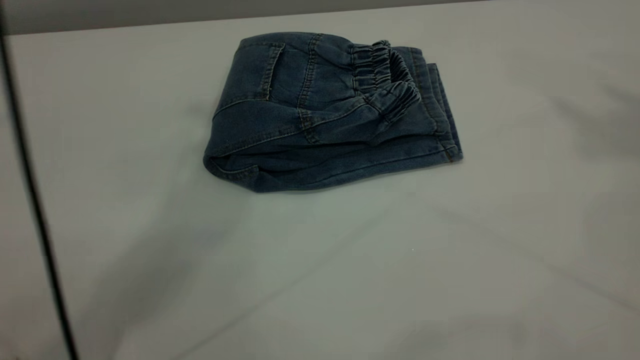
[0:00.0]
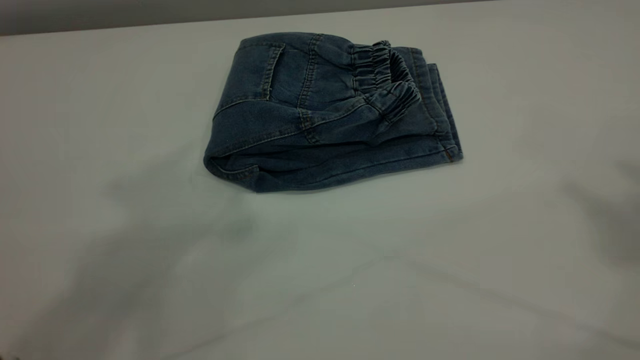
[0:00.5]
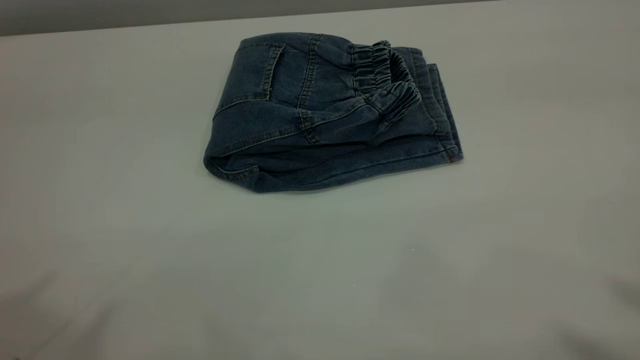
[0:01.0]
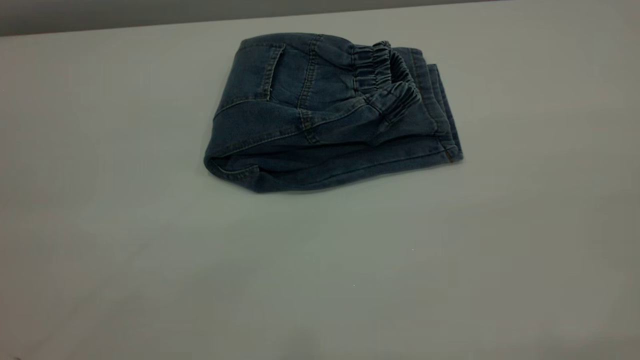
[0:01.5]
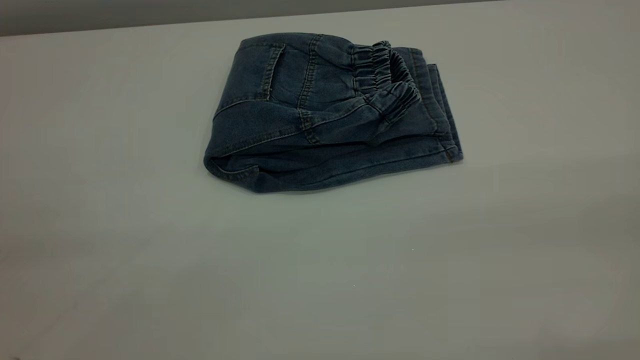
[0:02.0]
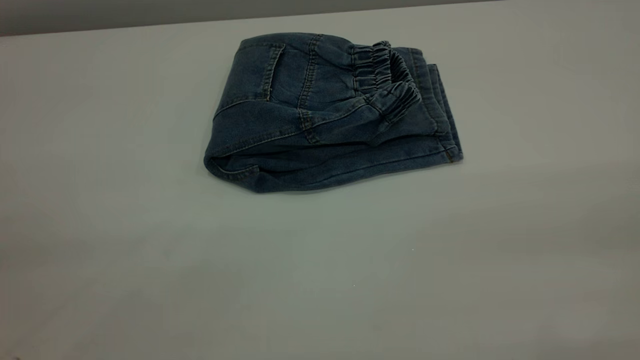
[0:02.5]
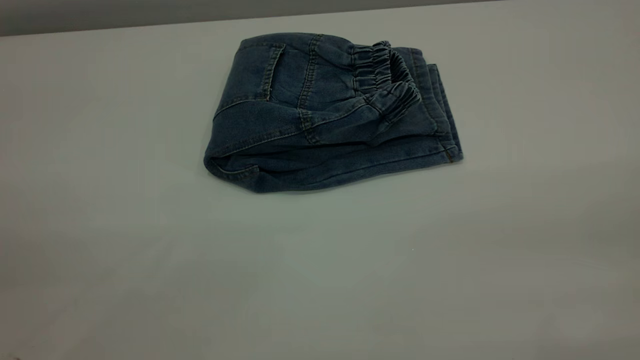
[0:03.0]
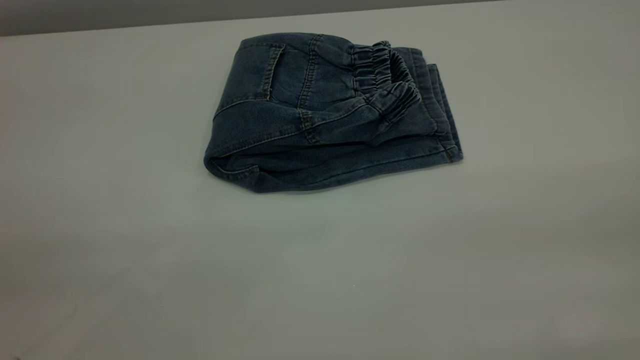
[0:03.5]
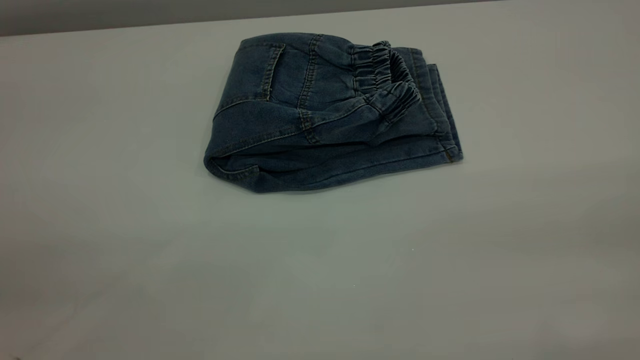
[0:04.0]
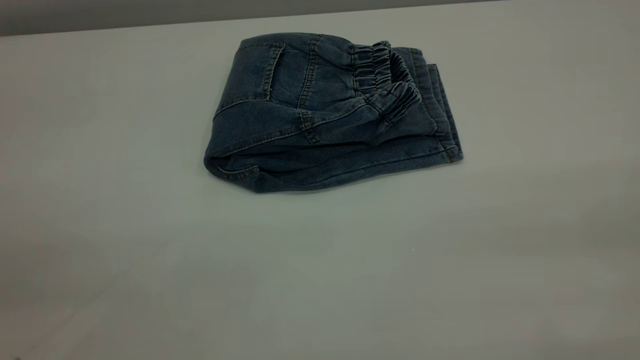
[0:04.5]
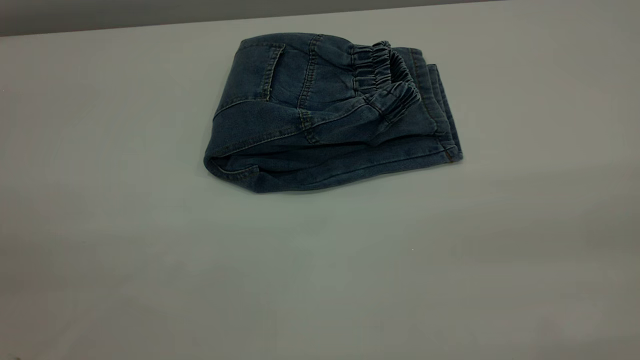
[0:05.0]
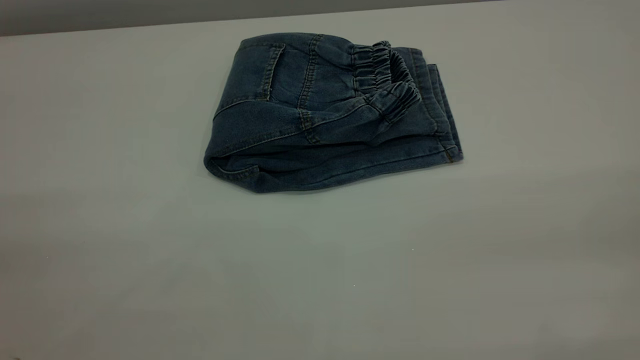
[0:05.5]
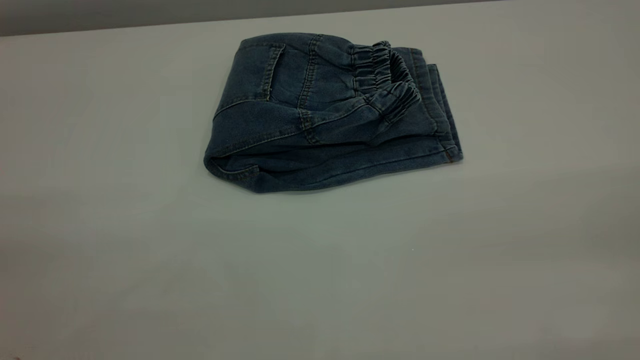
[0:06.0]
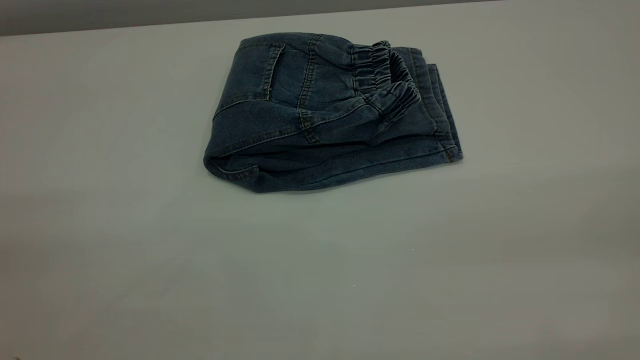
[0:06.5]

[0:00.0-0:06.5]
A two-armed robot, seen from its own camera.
0:00.0 to 0:02.0: The left gripper is displaced backward, to the left and downward by some 40 cm.
